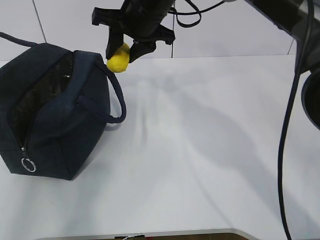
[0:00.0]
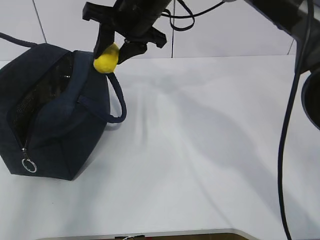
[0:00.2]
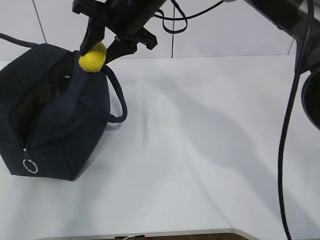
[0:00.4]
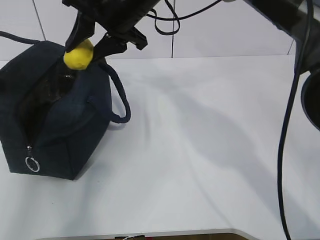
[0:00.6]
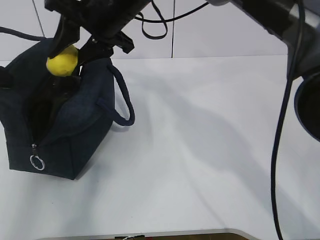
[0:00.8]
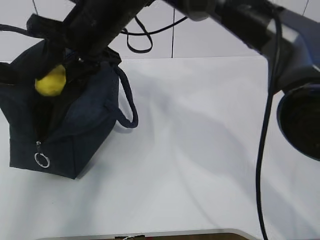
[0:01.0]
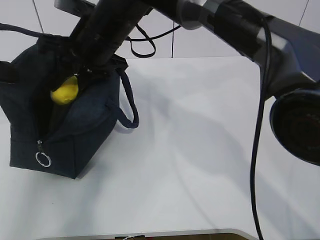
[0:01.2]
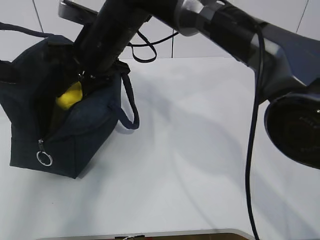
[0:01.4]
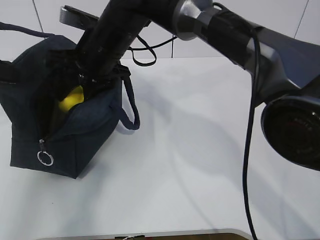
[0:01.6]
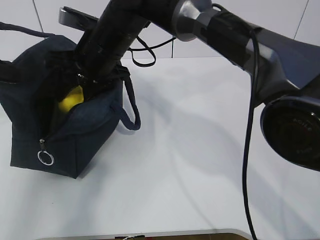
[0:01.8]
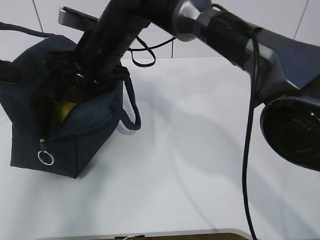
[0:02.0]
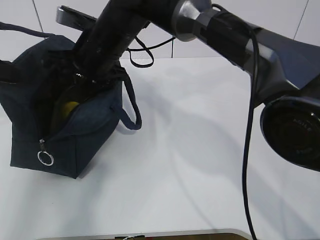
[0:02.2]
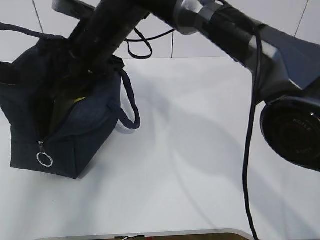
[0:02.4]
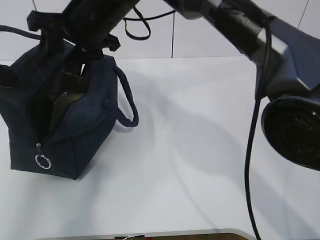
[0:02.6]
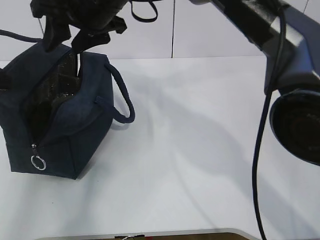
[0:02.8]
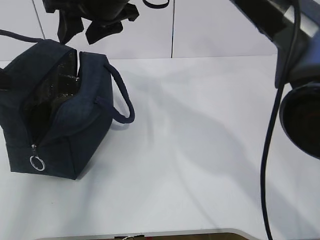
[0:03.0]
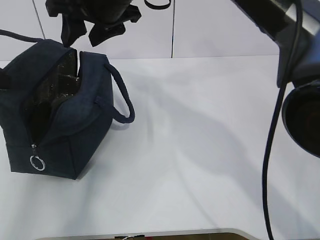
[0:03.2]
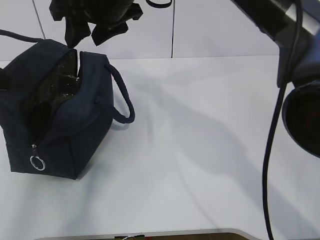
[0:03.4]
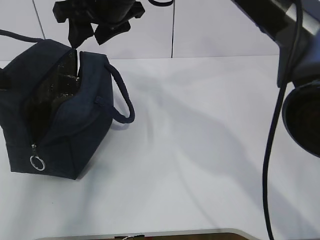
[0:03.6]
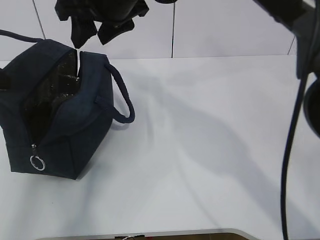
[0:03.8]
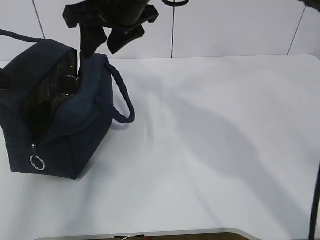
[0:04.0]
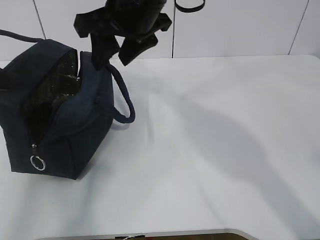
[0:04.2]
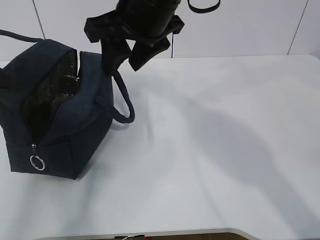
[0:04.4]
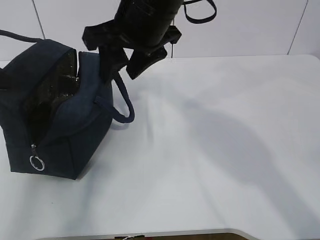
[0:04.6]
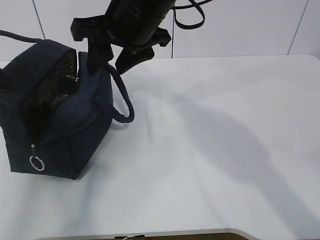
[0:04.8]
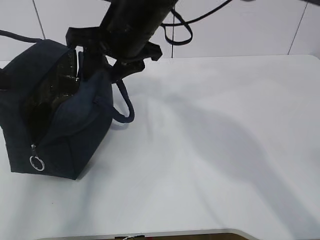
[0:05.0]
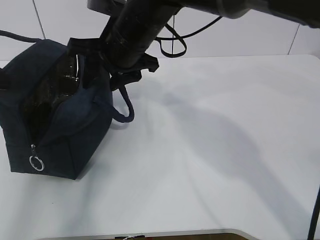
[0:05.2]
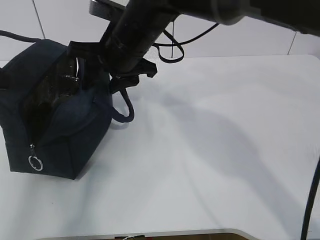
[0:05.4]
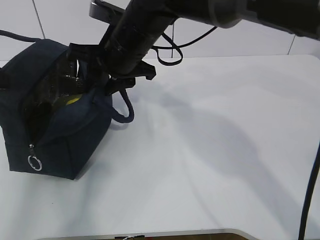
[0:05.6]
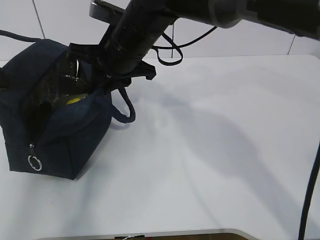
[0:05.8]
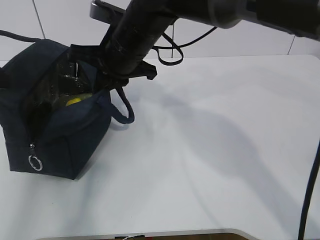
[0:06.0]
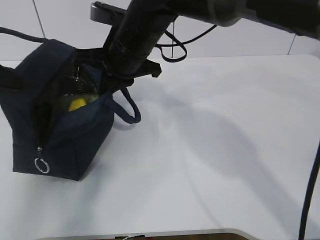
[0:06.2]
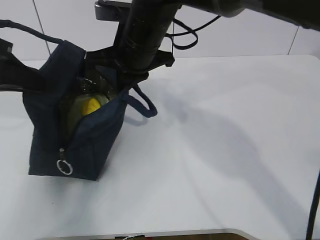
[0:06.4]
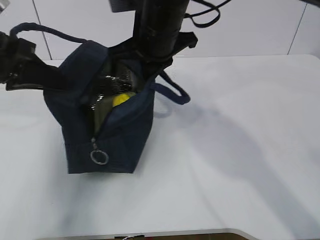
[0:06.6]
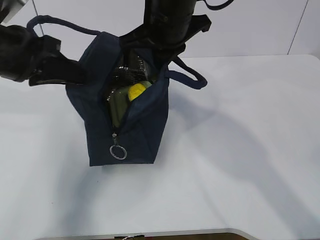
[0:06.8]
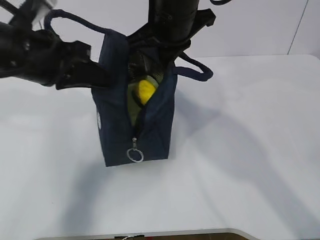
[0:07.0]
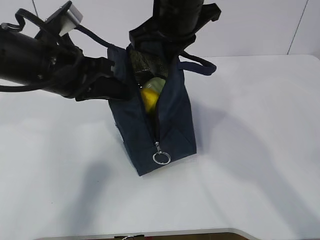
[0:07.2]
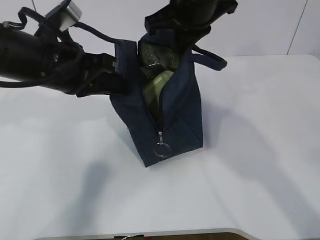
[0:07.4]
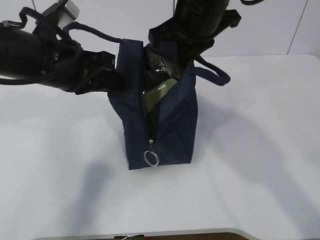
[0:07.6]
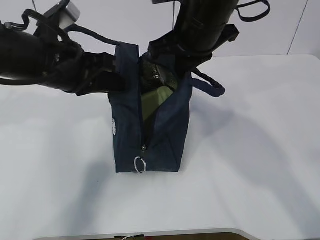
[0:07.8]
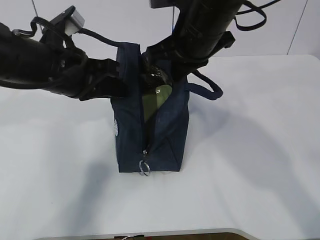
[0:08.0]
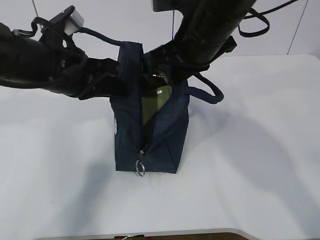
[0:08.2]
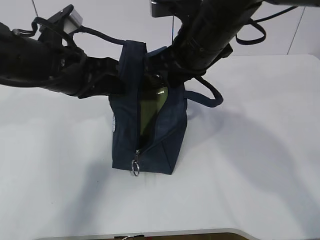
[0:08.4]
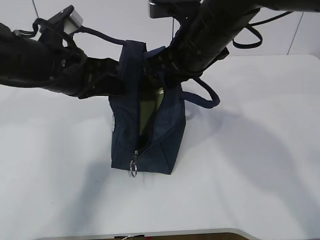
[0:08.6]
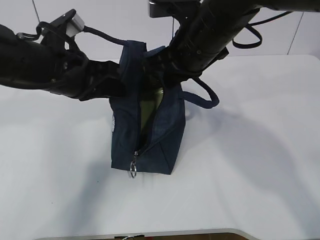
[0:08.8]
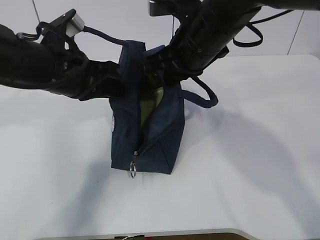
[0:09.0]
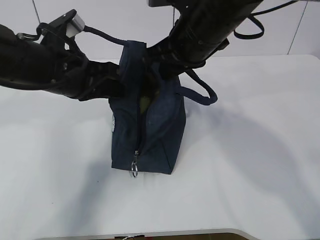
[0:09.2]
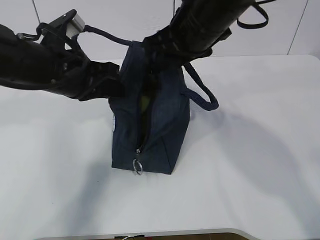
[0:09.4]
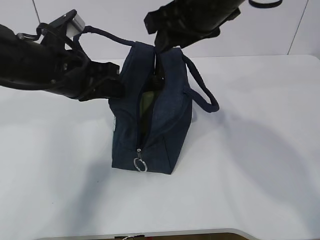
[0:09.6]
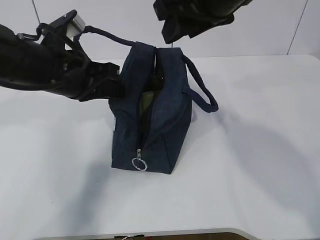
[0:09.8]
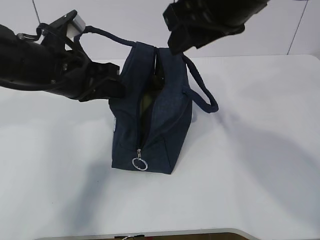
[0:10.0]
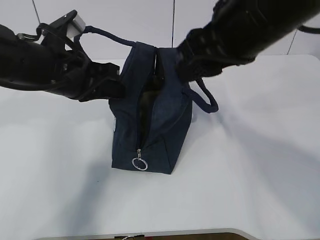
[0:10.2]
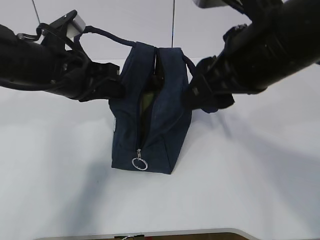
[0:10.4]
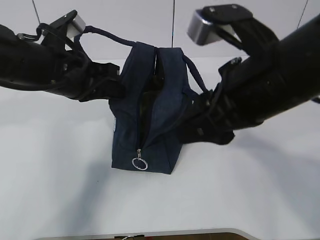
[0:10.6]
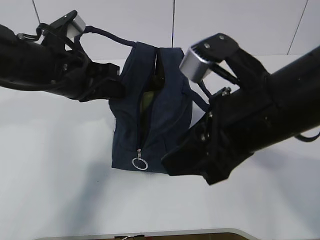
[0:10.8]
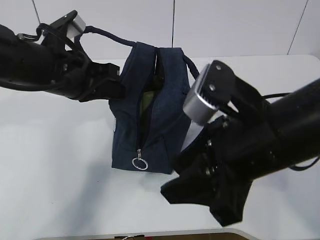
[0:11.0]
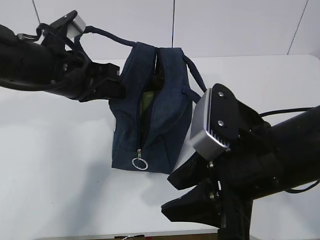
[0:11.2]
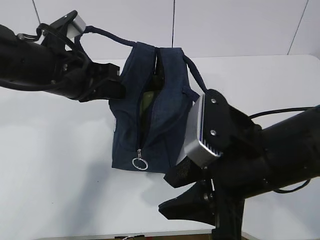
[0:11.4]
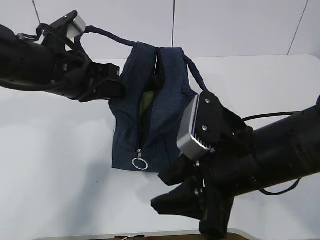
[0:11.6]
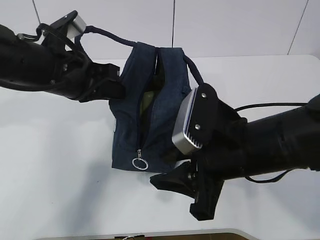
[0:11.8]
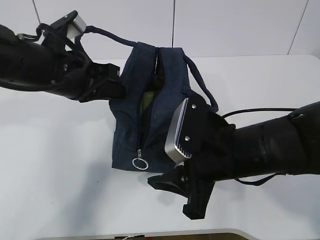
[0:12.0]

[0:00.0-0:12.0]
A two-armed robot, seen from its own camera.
0:00.0 to 0:01.6: The right gripper heads to the left, covering some 5 cm.
0:01.6 to 0:03.0: The right gripper travels upward by about 10 cm.
0:03.0 to 0:04.4: The right gripper shifts roughly 5 cm backward and to the right.
0:04.4 to 0:06.0: The right gripper is displaced downward by roughly 10 cm, and closes up.
0:06.0 to 0:07.6: The left gripper heads to the right, covering roughly 20 cm, while the right gripper shifts roughly 10 cm to the right and upward.
0:07.6 to 0:09.0: There are only small adjustments of the grippers.
0:09.0 to 0:10.4: The right gripper shifts roughly 10 cm backward, and opens its fingers.
0:10.4 to 0:12.0: The right gripper goes about 15 cm downward.

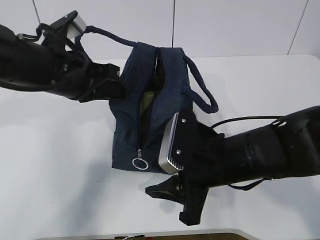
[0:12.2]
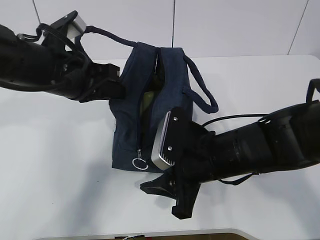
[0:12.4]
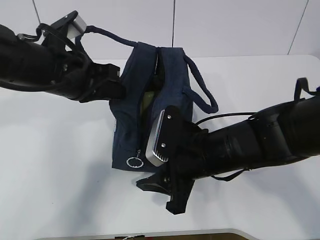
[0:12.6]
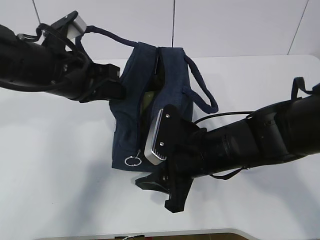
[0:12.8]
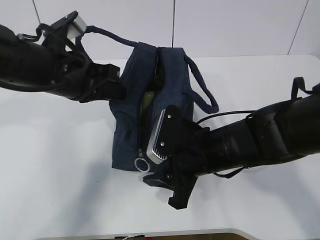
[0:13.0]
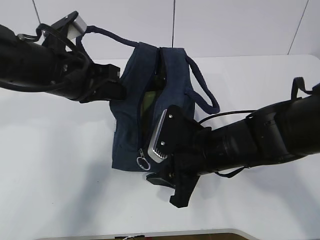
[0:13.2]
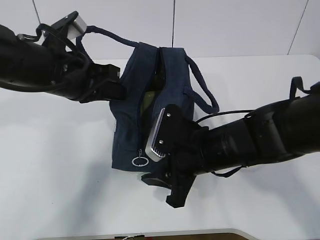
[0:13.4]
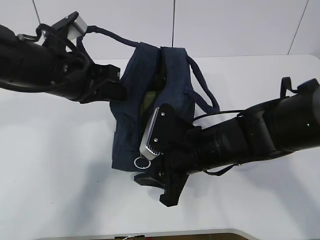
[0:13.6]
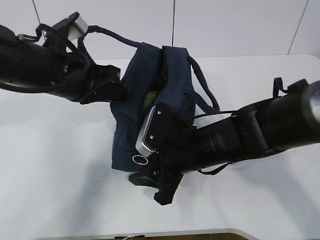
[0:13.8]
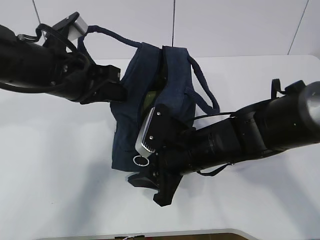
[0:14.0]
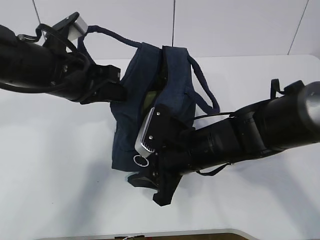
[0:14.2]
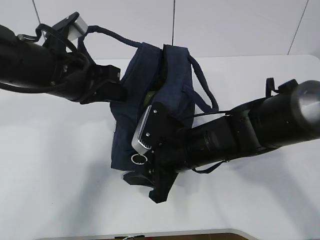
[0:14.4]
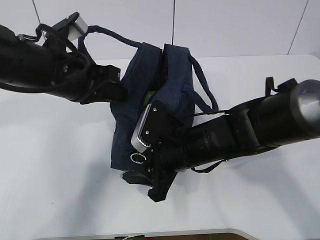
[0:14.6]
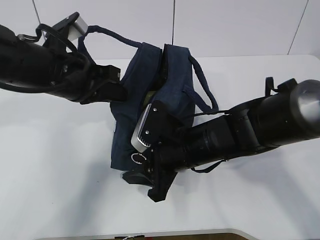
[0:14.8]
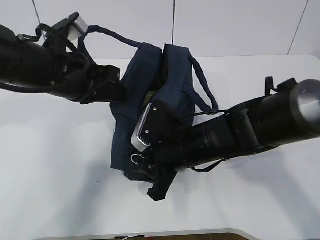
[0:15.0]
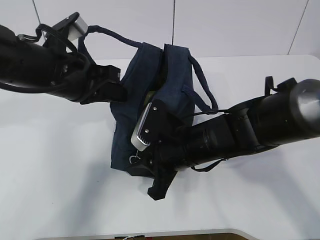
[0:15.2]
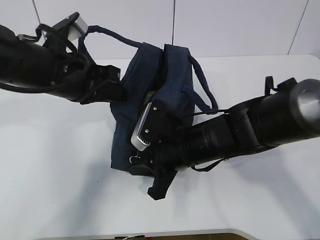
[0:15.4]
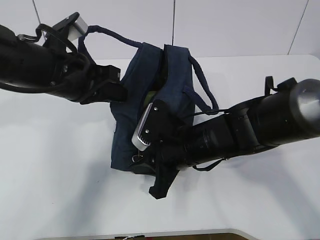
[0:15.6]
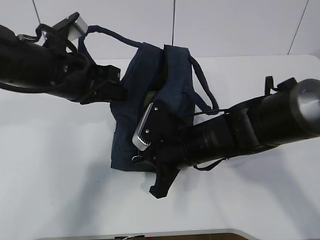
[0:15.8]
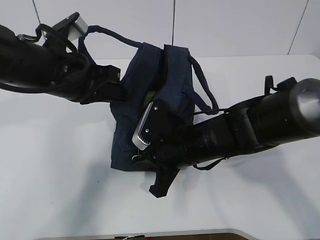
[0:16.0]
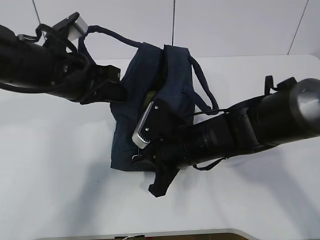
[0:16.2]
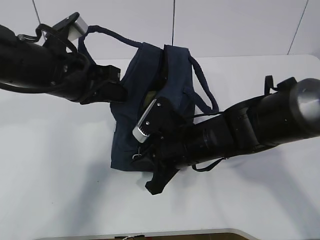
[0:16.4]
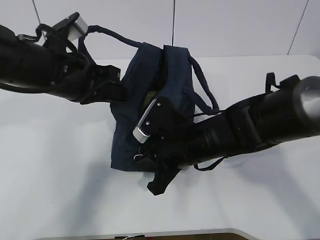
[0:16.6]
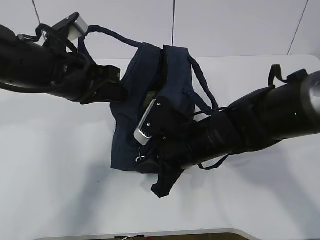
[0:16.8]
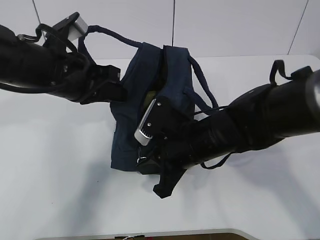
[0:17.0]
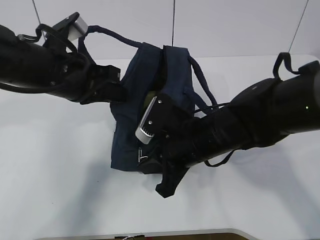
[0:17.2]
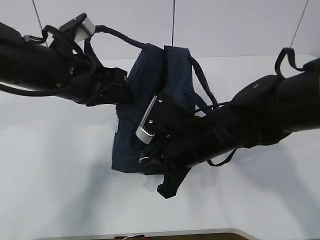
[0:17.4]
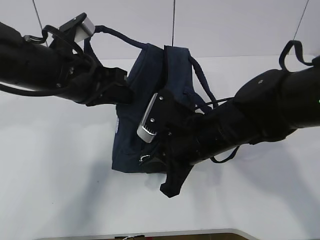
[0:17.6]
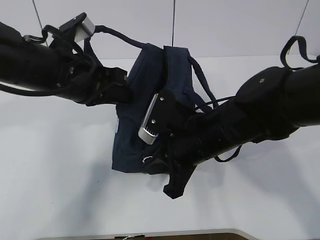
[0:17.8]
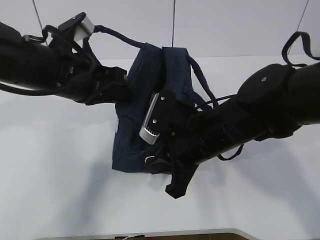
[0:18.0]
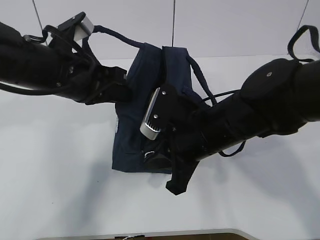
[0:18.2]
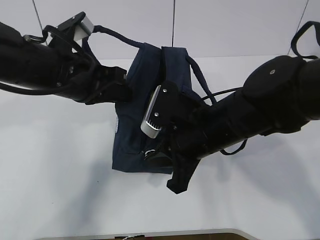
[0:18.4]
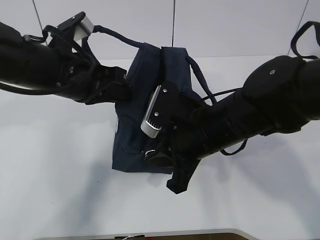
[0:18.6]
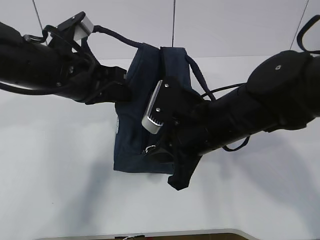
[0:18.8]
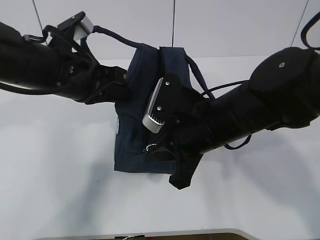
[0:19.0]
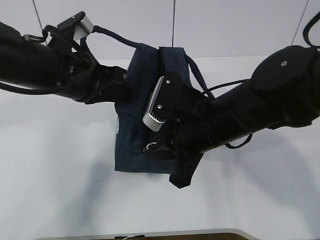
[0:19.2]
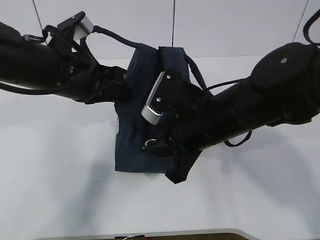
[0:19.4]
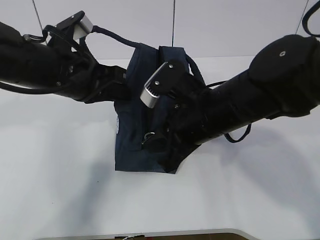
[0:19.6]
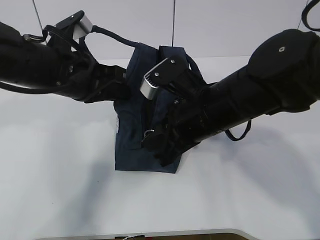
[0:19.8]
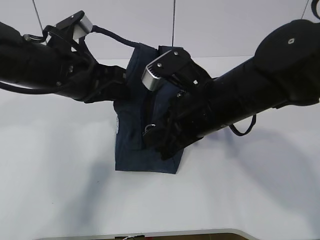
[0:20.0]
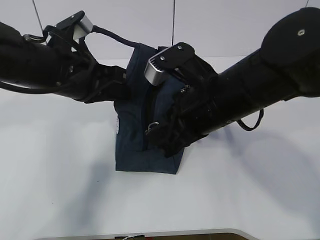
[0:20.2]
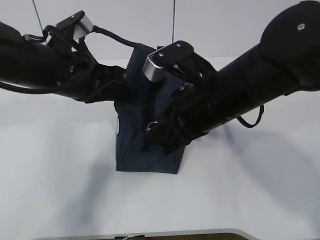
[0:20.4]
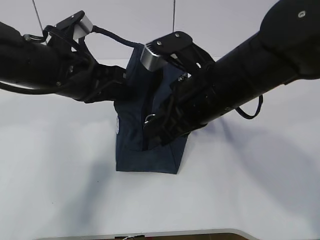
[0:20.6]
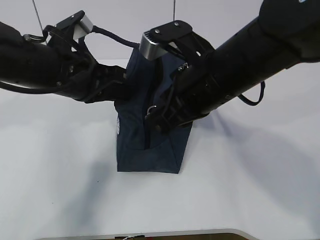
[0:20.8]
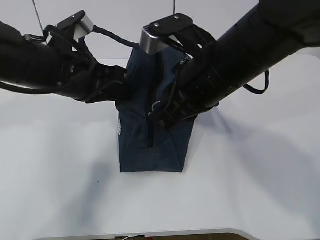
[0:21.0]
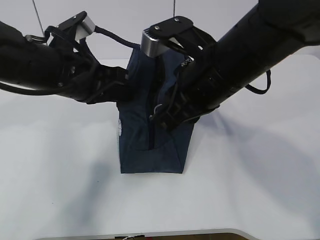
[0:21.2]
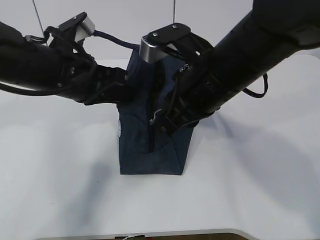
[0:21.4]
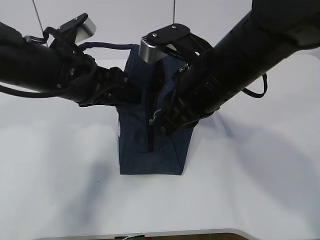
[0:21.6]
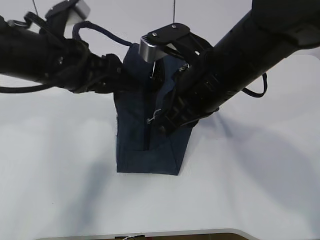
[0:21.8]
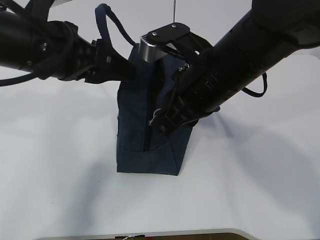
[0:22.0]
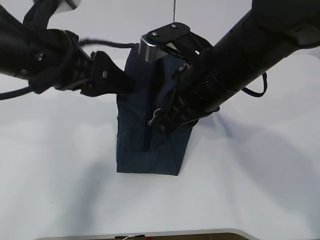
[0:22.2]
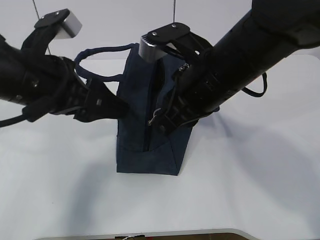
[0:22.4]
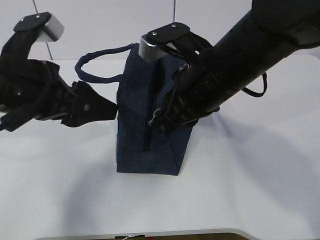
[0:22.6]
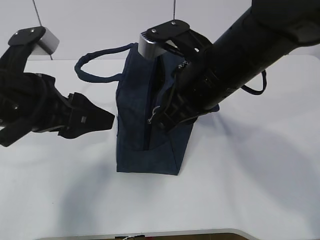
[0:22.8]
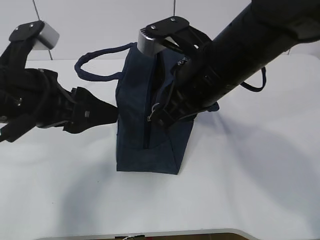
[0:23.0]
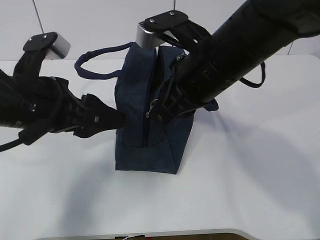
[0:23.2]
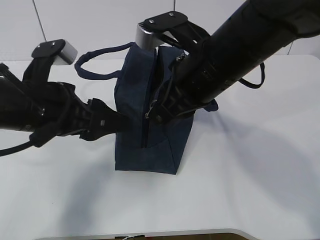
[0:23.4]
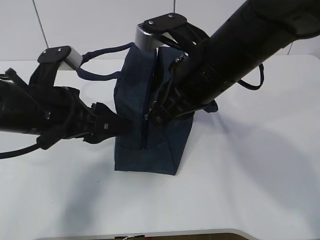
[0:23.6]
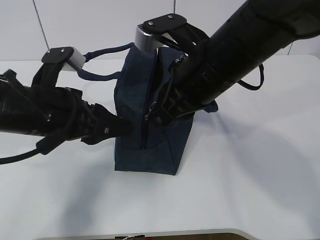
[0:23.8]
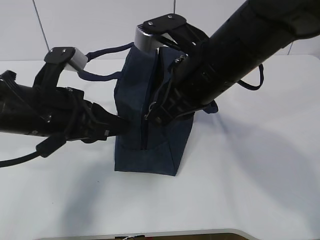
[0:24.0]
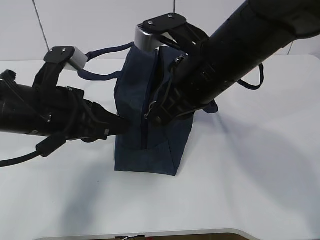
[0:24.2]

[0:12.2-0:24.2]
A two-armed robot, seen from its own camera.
0:12.2 to 0:13.8: The right gripper moves approximately 5 cm.
0:13.8 to 0:15.2: The right gripper closes up.
0:15.2 to 0:16.6: The grippers stay close to where they were, moving slightly.
0:16.6 to 0:18.2: The right gripper ends up roughly 5 cm from where it was.
0:18.2 to 0:19.8: There are only small adjustments of the grippers.
0:19.8 to 0:21.2: The right gripper is displaced upward by approximately 5 cm.
0:21.2 to 0:22.6: The left gripper shifts some 5 cm backward, and opens its fingers.
0:22.6 to 0:24.2: The left gripper closes its fingers.
